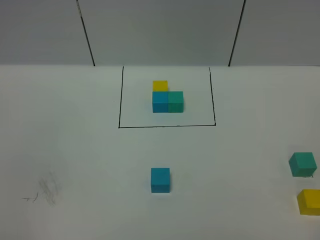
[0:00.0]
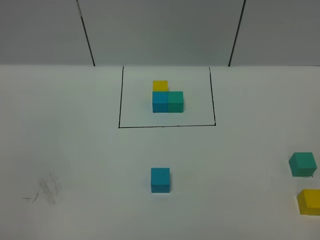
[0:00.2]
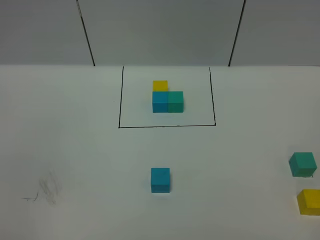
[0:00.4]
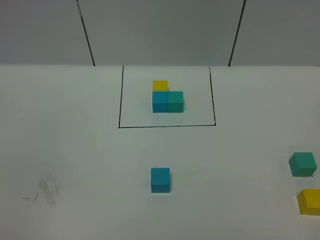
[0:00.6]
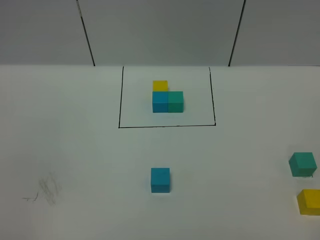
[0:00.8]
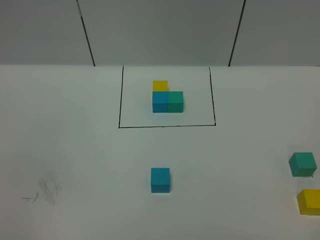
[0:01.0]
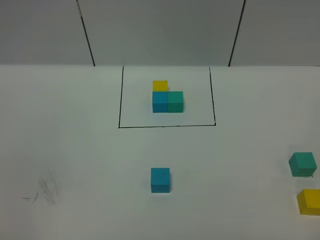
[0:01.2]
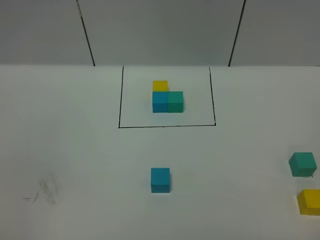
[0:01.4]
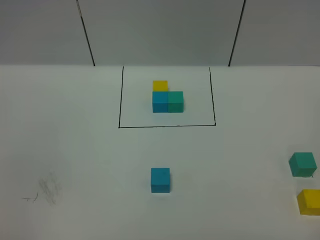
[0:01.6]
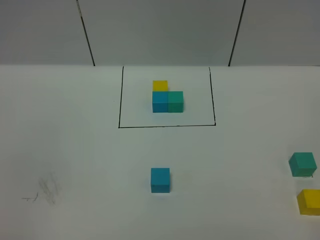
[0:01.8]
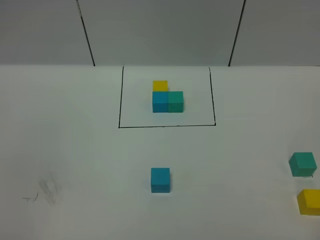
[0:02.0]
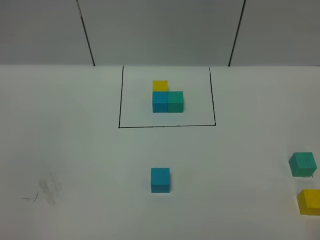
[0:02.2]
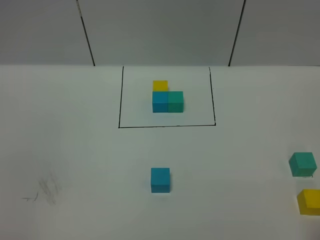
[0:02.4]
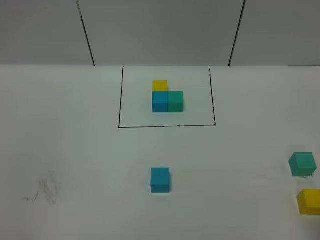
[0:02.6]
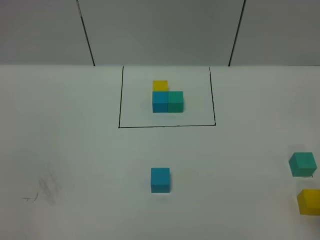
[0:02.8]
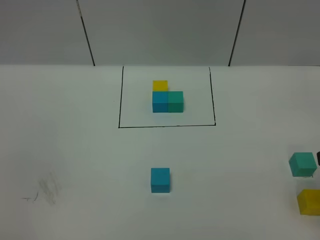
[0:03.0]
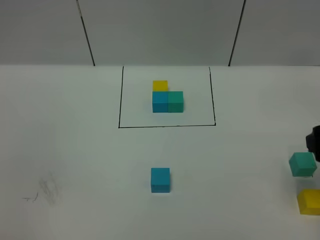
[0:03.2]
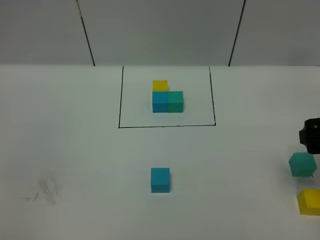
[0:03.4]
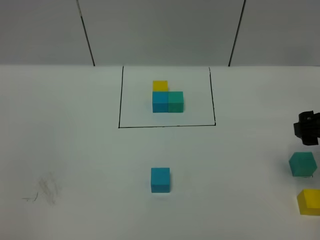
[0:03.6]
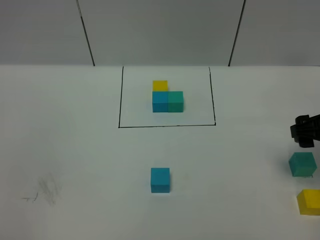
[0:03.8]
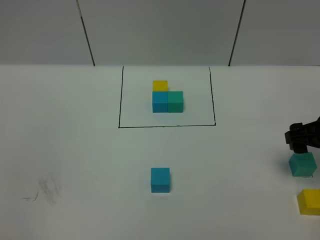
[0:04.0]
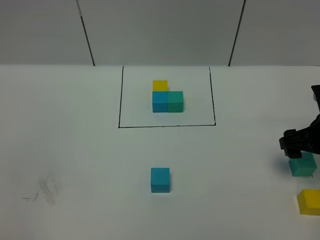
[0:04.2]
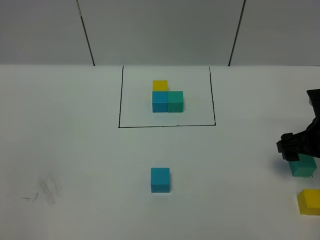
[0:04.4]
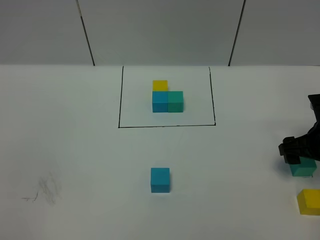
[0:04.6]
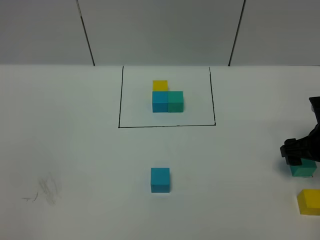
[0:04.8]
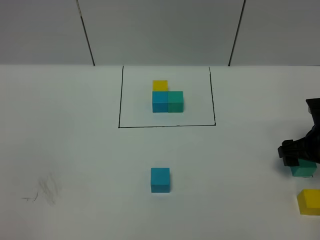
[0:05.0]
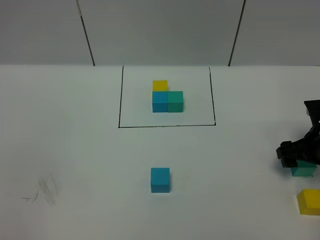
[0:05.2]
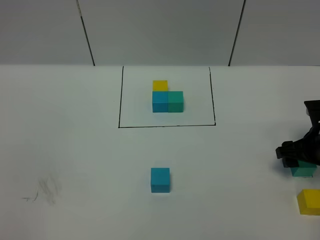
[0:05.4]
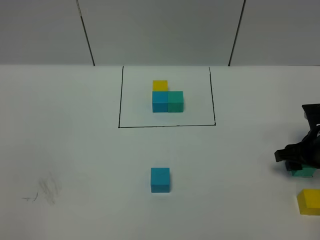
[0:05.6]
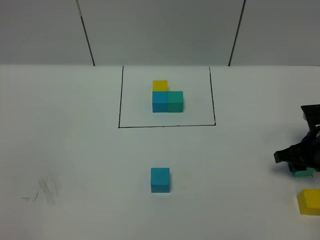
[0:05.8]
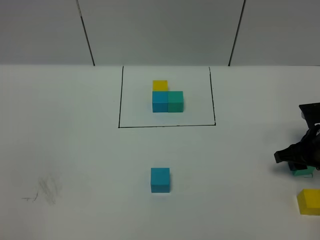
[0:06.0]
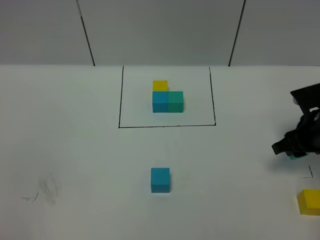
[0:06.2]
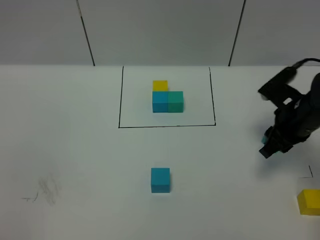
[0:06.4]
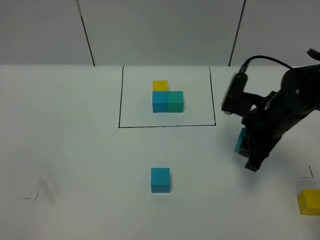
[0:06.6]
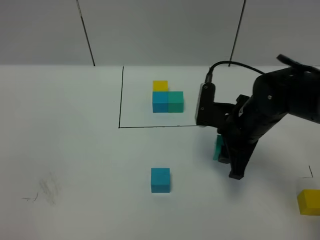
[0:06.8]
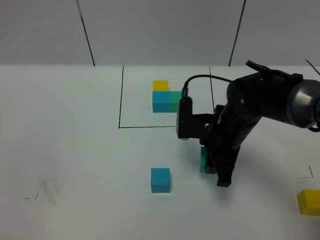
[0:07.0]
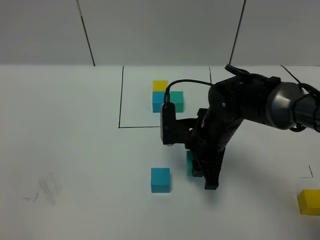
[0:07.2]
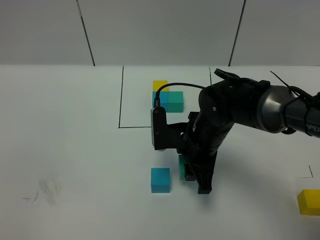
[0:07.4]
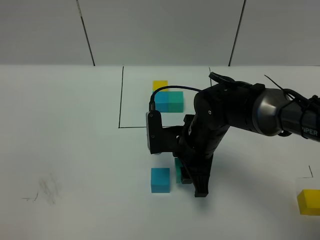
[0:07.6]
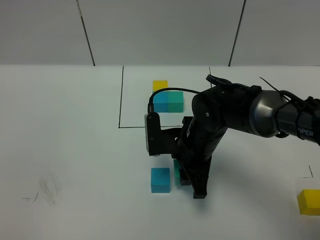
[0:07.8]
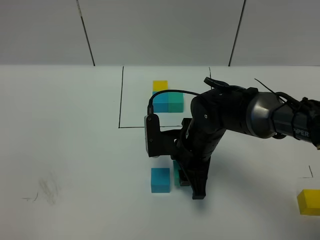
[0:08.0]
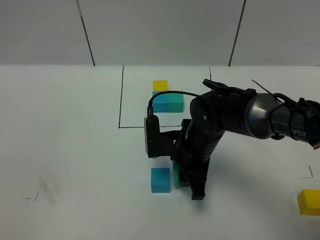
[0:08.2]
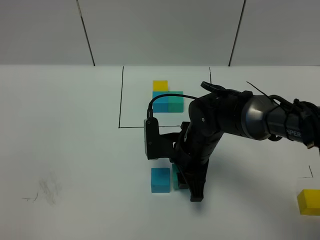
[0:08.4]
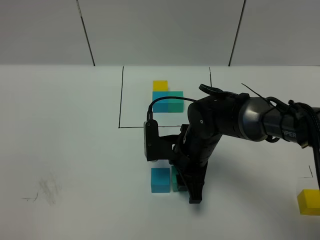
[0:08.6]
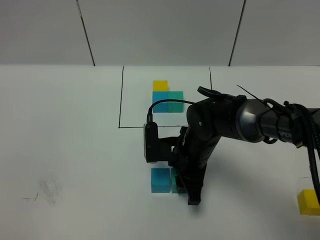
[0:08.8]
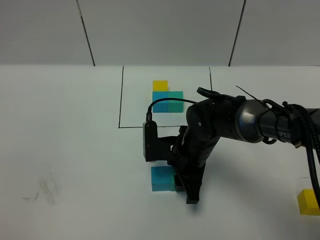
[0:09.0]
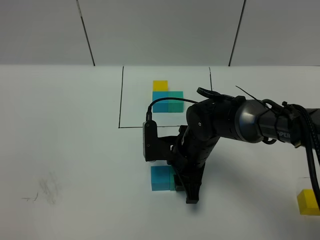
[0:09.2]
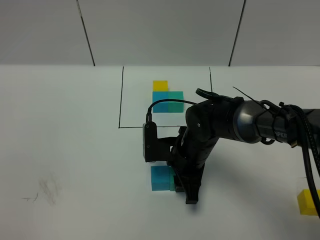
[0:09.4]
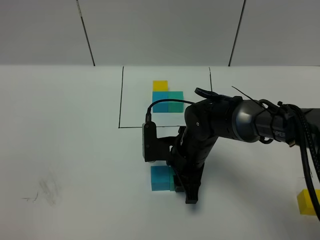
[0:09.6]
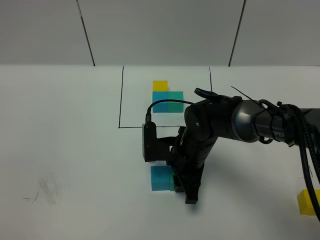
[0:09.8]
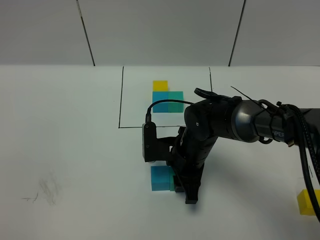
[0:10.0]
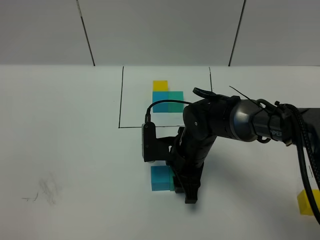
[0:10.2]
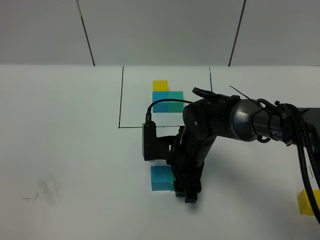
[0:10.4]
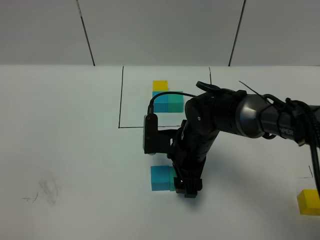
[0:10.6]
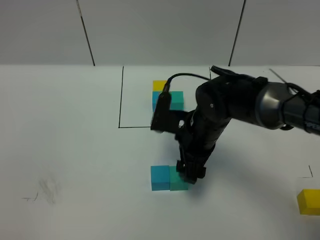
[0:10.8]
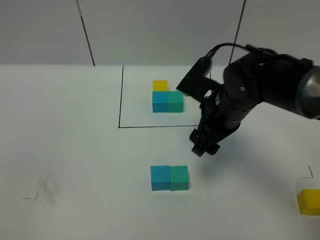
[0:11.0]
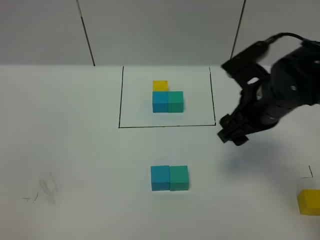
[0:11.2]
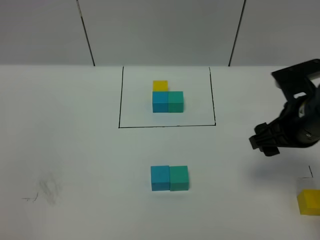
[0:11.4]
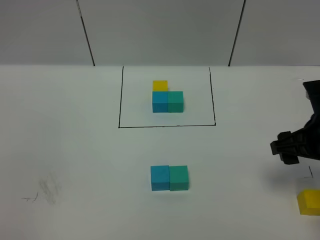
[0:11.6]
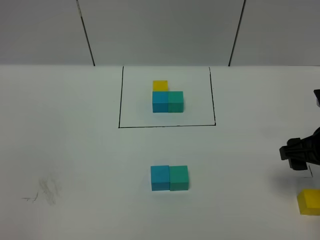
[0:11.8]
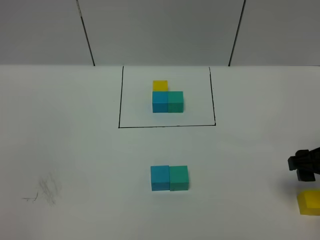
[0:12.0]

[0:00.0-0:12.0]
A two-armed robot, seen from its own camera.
Task of the whole recording: According to the building block template in front, assemble the scattered blocks together.
Step, 0:00.0 to 0:11.0: Put the green cube on the right of the blue cube.
0:03.0 to 0:04.4: The right gripper heads forward and downward, covering approximately 20 cm.
0:04.4 to 0:06.0: The right gripper closes.
0:06.0 to 0:07.6: The right gripper goes roughly 25 cm to the left.
0:07.6 to 0:09.0: The grippers move only a little.
0:09.0 to 0:10.4: The right gripper opens its fingers.
0:10.4 to 0:12.0: The right gripper shifts approximately 25 cm to the right.

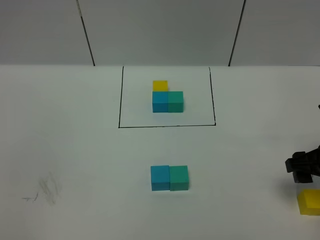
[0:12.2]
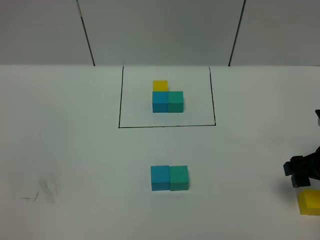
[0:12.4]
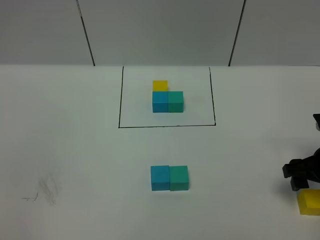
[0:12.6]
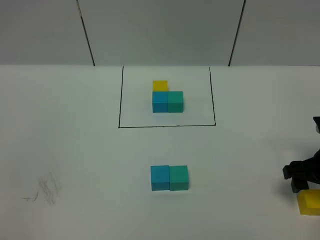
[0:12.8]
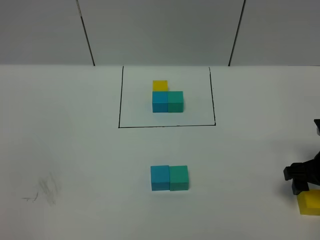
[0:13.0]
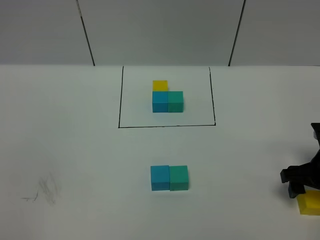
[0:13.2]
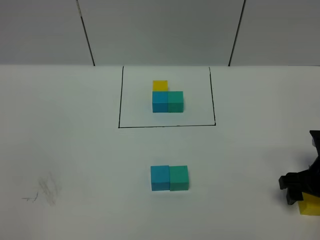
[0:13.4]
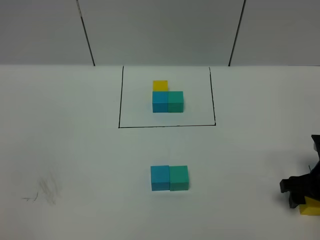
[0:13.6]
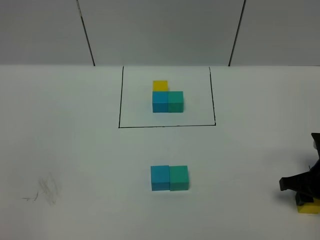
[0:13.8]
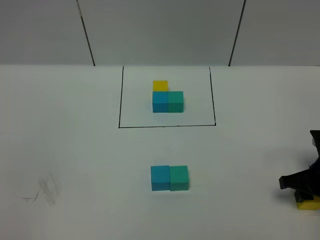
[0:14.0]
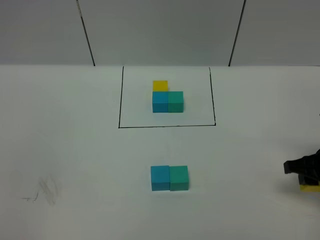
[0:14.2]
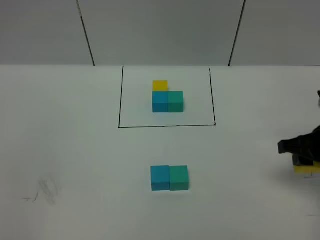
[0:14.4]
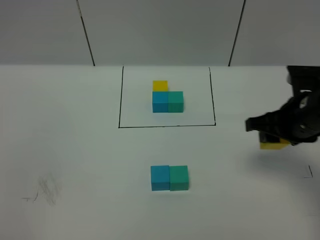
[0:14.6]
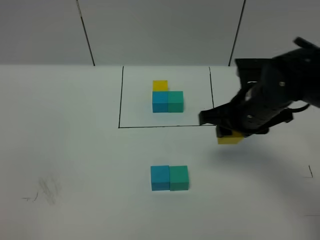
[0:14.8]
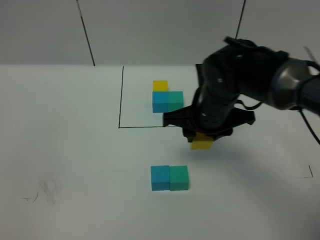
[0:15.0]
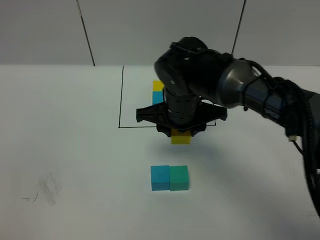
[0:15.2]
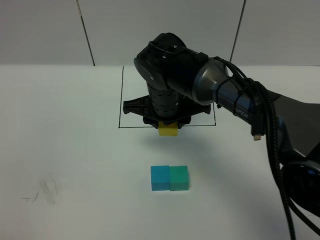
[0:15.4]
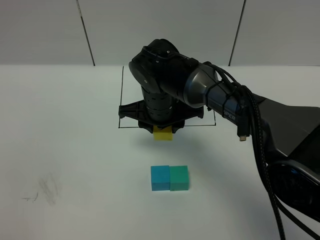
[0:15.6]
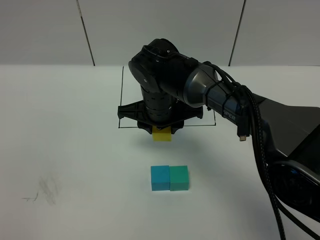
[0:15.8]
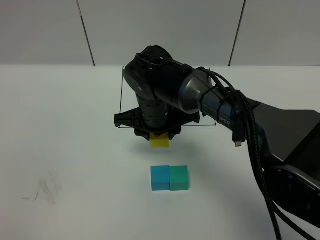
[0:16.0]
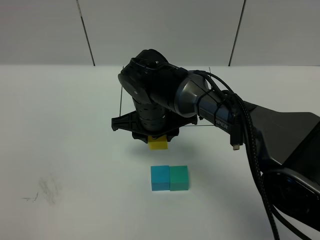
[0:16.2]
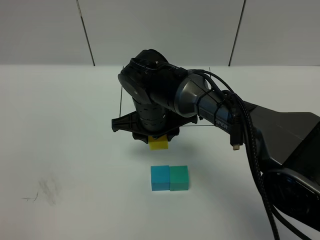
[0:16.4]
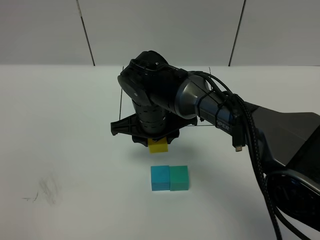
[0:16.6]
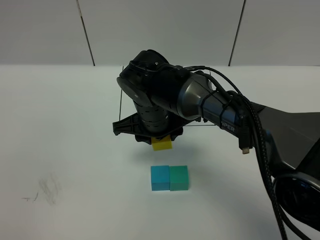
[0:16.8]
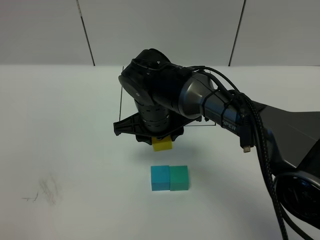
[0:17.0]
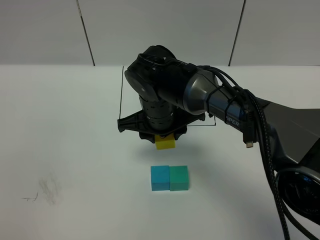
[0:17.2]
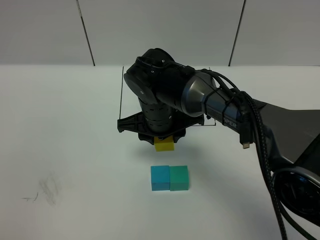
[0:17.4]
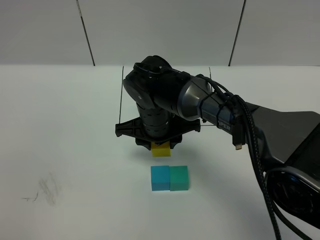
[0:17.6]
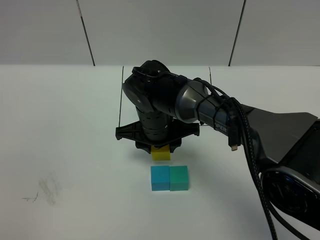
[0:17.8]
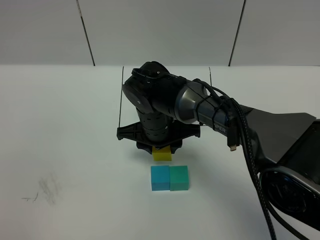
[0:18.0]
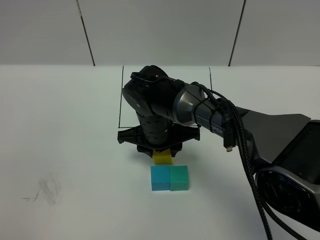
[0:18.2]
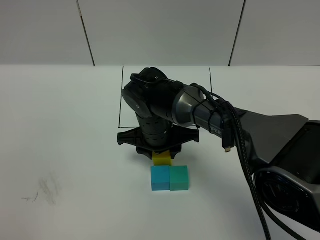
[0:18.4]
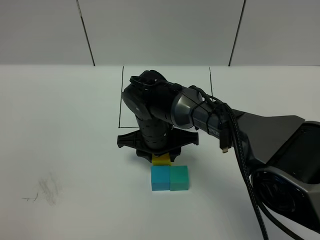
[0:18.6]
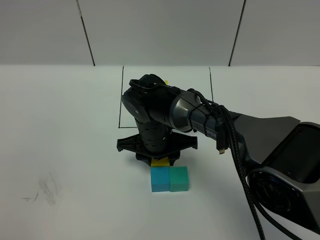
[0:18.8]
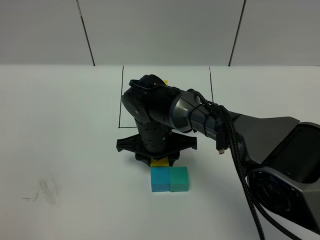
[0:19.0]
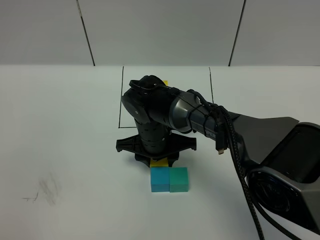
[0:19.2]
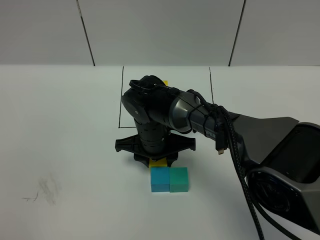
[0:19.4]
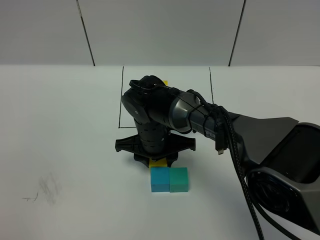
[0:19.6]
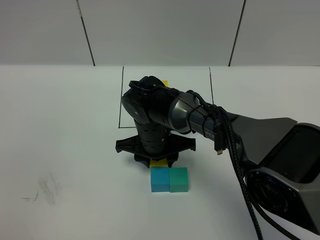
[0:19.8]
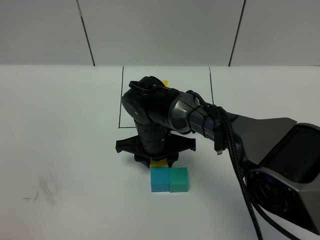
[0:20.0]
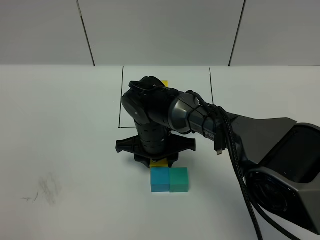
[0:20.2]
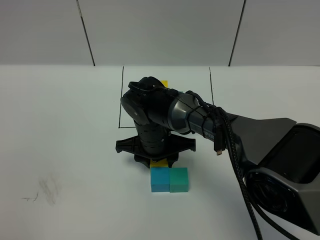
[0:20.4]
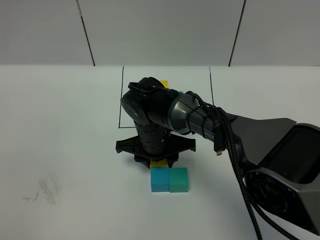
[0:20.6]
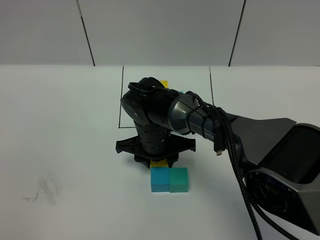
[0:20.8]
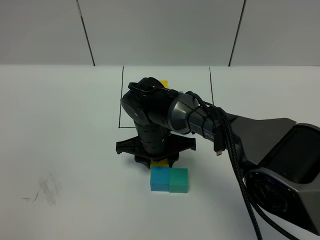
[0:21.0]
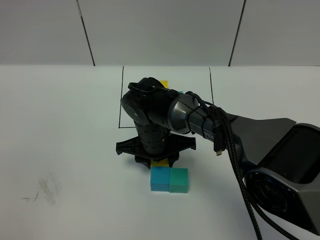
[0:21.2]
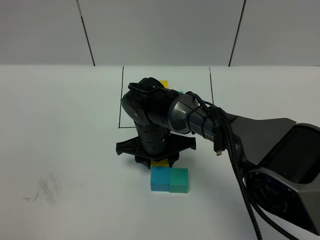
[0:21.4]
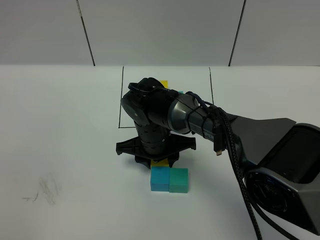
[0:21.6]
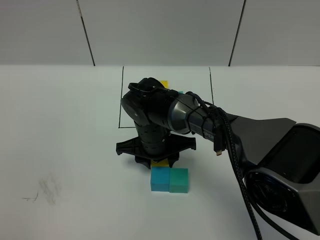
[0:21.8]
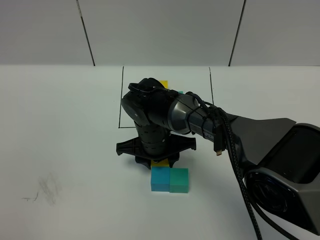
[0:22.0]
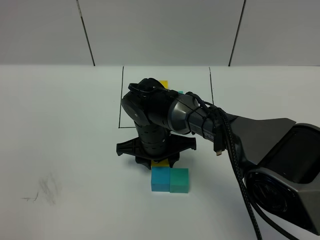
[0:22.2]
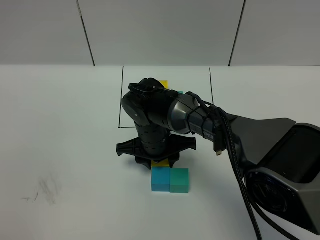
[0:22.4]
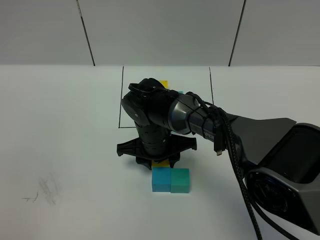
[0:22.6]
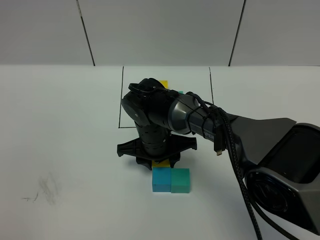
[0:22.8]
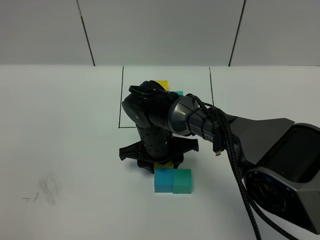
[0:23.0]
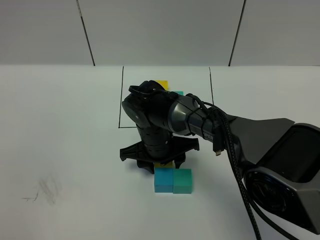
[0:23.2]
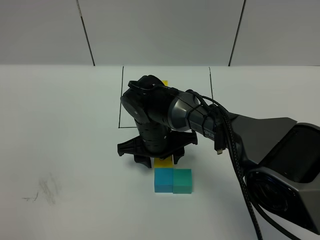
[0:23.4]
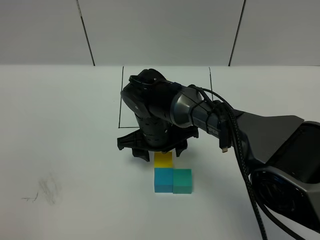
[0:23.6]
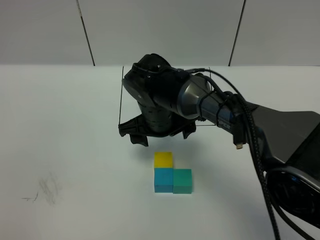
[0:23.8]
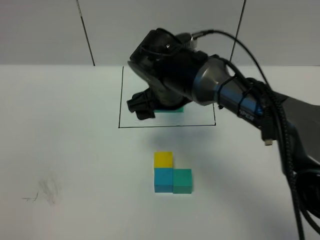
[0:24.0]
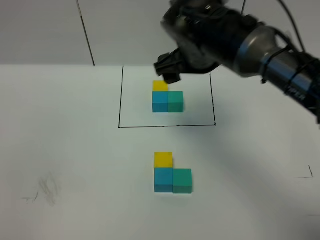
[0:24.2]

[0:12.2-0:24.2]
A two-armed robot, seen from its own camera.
Task of the whole recording: According to the building block template in front, assemble the scattered blocks together.
Step, 0:12.2 to 0:23.8: Put the yellow cube on the behind of the blue cube.
0:12.2 to 0:13.8: The right gripper travels downward by approximately 5 cm, and closes.
0:13.8 to 0:15.2: The right gripper travels to the left by approximately 30 cm.
0:15.2 to 0:16.6: The right gripper ends up some 5 cm from where it was.
0:16.6 to 0:18.2: The grippers stay close to where they were, moving slightly.
0:18.2 to 0:19.8: There are only small adjustments of the grippers.
0:19.8 to 0:22.6: Neither gripper changes place.
0:22.6 to 0:24.2: The right gripper heads upward and to the right, covering roughly 20 cm, and opens up.
